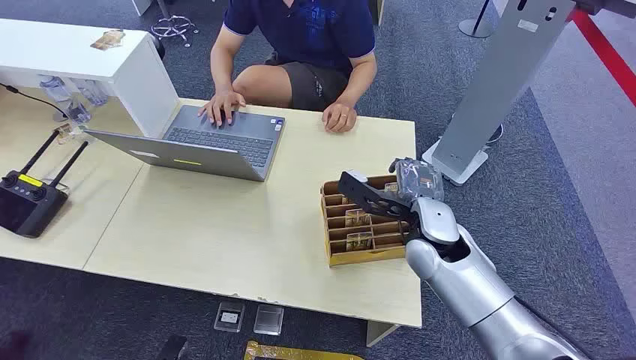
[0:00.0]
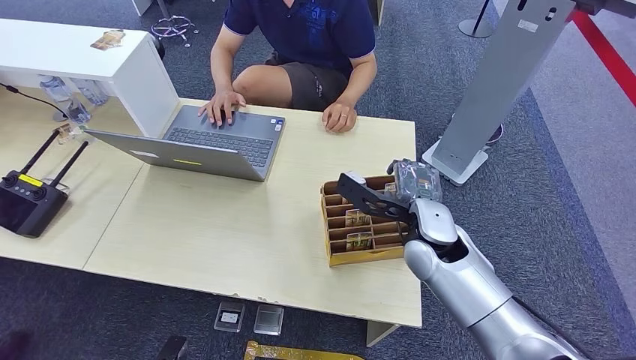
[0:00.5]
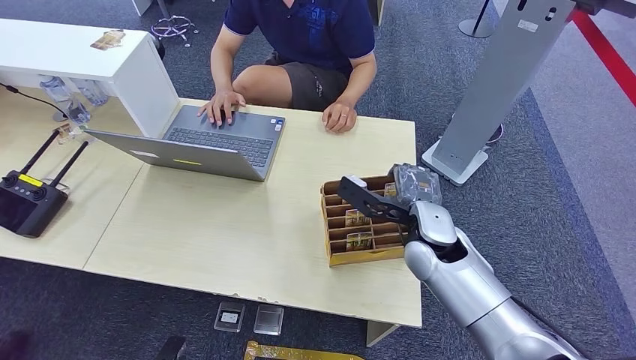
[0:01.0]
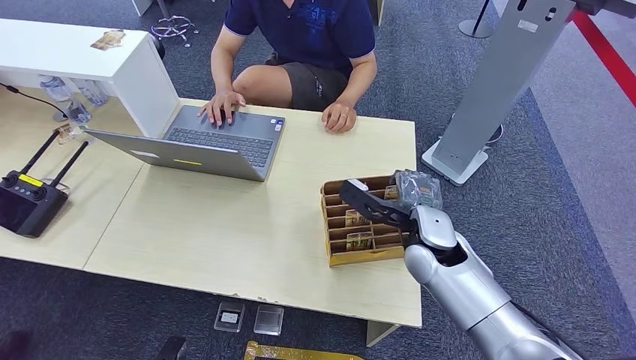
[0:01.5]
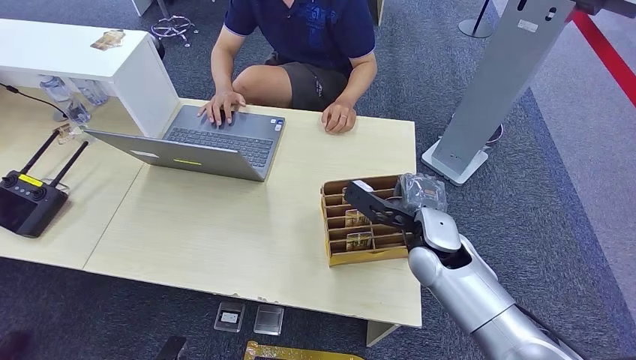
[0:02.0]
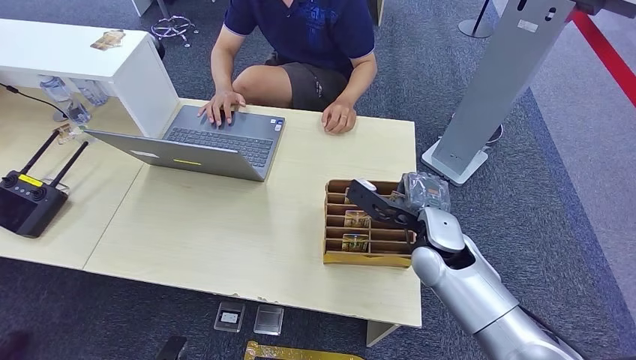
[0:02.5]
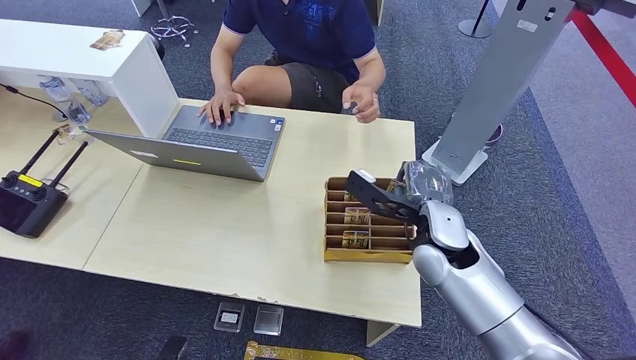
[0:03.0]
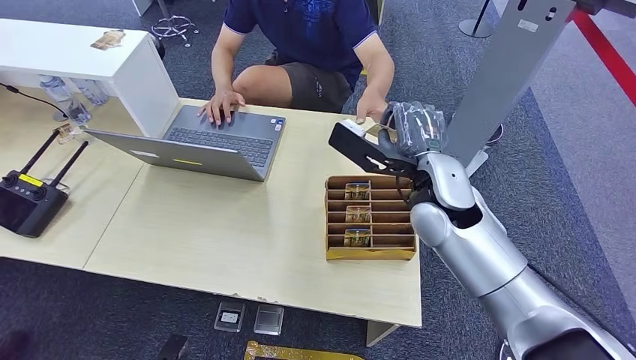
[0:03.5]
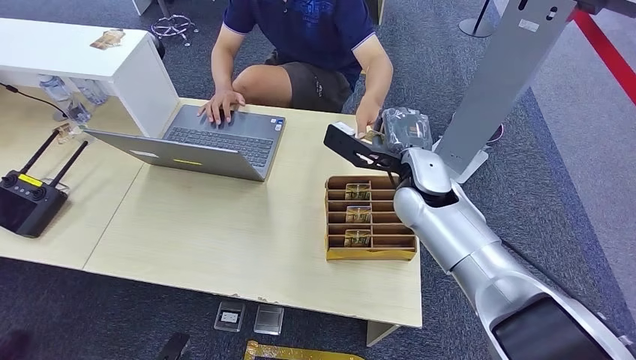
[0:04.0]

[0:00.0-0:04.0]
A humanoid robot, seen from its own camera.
Step, 0:00.0 to 0:02.5: Pick up the key card from the card box.
Step, 0:03.5 to 0:04.0: Hand the key card to the target.
0:02.0 to 0:04.0: The right hand moves upward and forward, roughly 10 cm.
